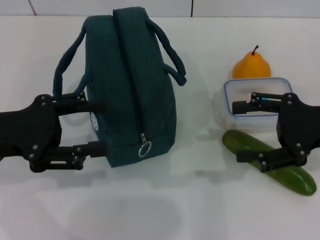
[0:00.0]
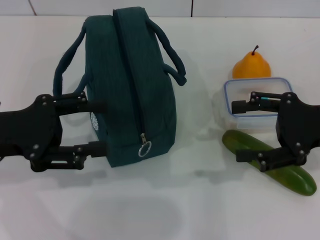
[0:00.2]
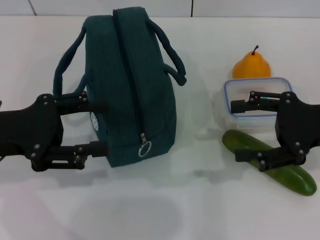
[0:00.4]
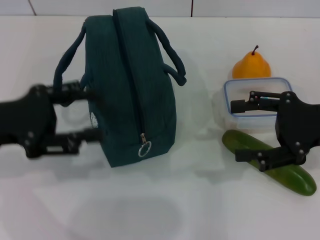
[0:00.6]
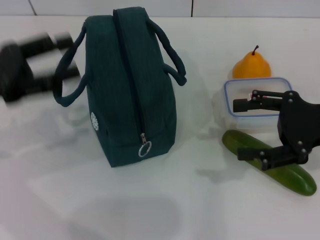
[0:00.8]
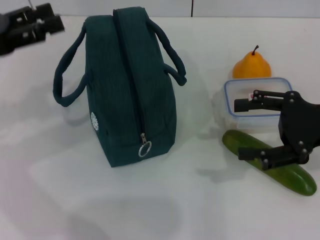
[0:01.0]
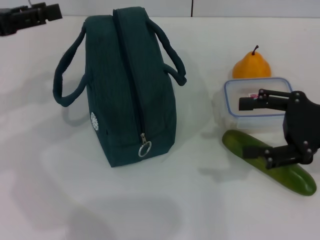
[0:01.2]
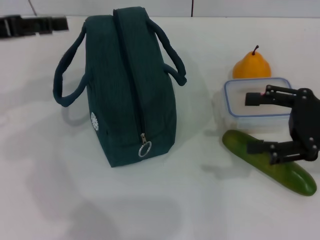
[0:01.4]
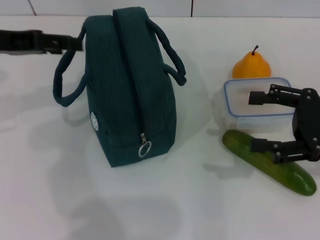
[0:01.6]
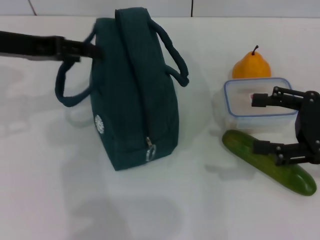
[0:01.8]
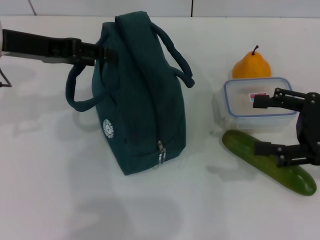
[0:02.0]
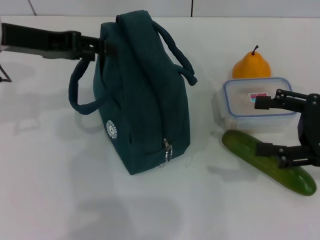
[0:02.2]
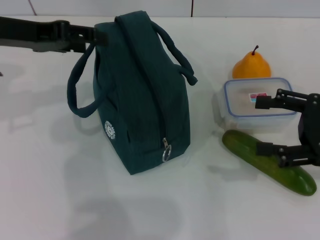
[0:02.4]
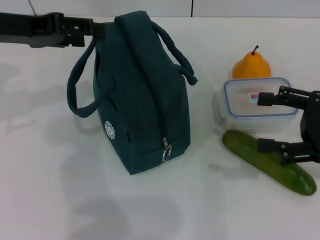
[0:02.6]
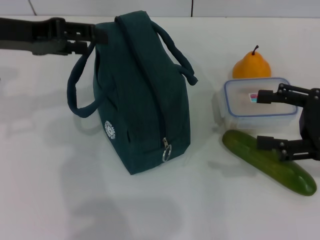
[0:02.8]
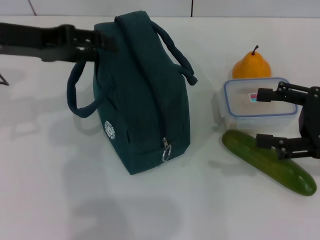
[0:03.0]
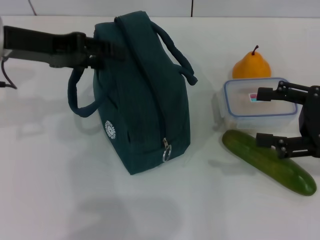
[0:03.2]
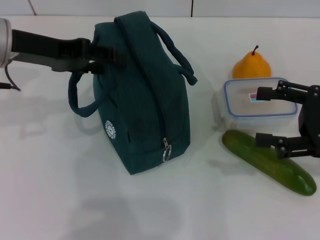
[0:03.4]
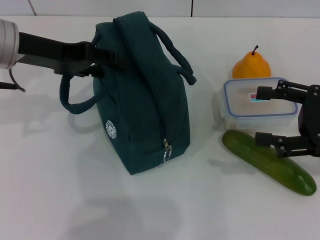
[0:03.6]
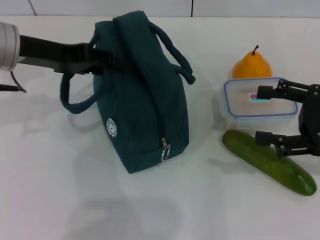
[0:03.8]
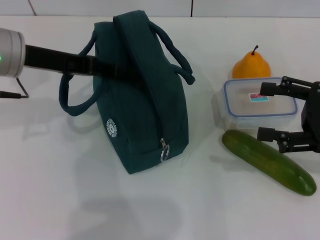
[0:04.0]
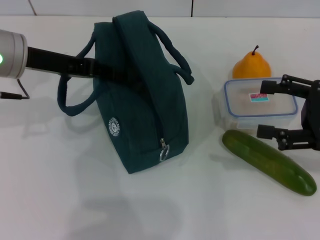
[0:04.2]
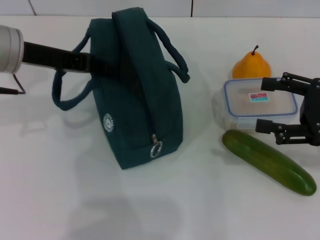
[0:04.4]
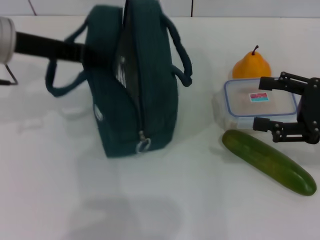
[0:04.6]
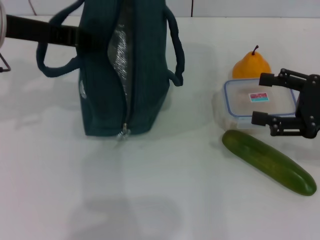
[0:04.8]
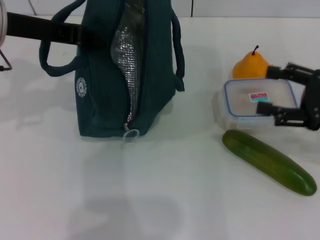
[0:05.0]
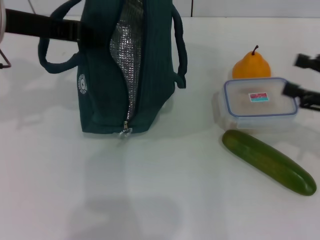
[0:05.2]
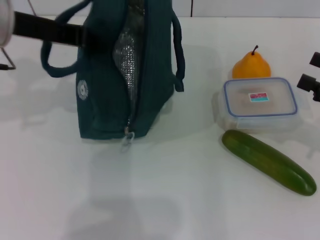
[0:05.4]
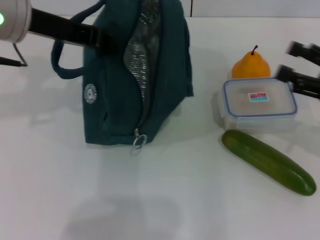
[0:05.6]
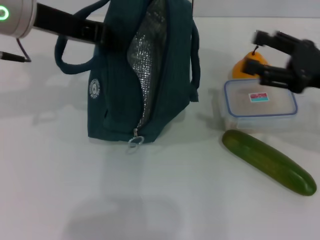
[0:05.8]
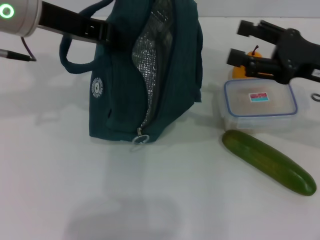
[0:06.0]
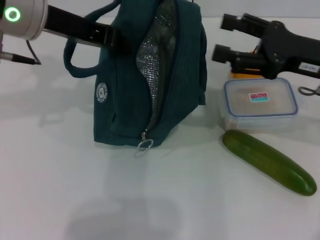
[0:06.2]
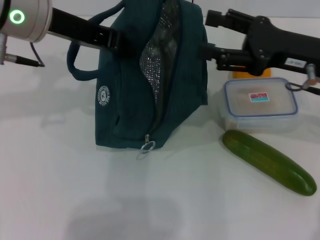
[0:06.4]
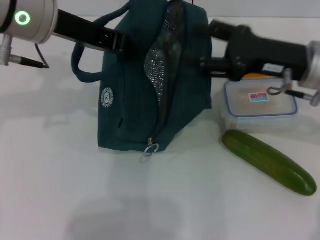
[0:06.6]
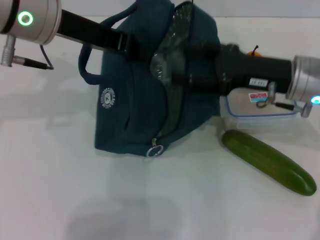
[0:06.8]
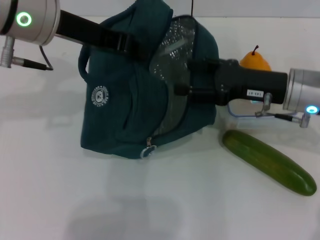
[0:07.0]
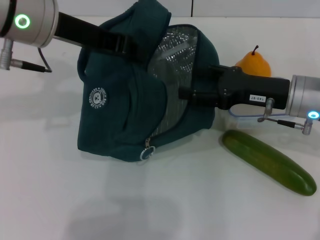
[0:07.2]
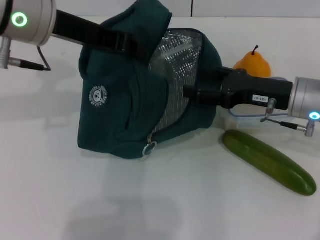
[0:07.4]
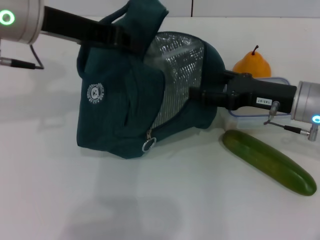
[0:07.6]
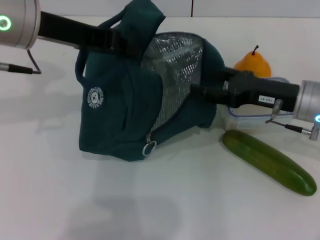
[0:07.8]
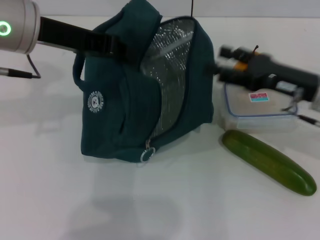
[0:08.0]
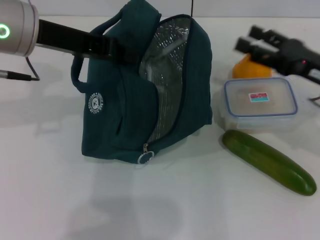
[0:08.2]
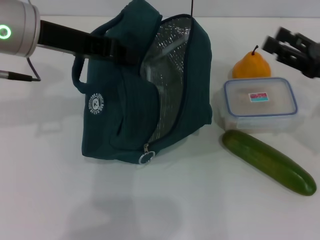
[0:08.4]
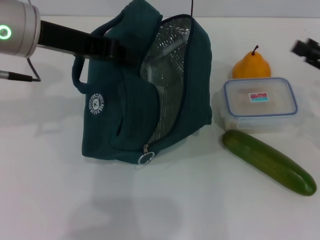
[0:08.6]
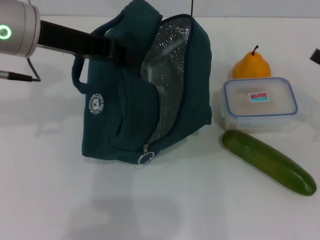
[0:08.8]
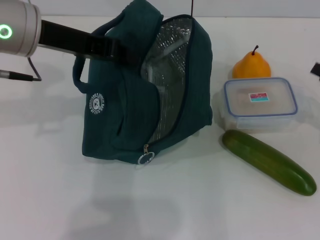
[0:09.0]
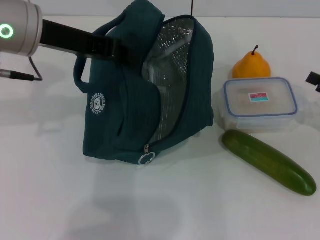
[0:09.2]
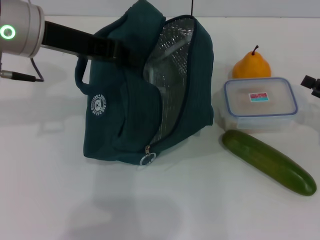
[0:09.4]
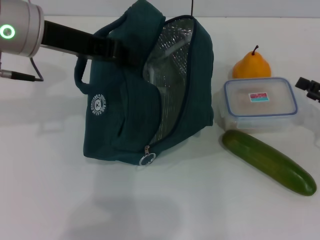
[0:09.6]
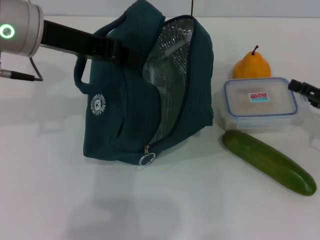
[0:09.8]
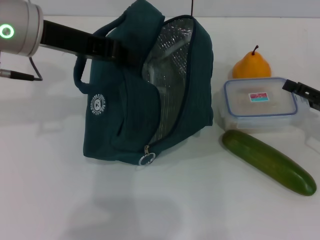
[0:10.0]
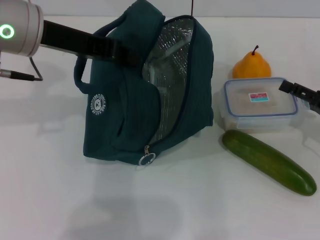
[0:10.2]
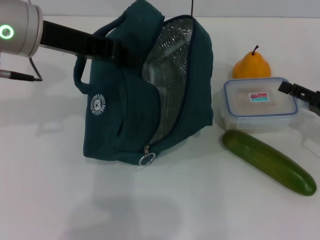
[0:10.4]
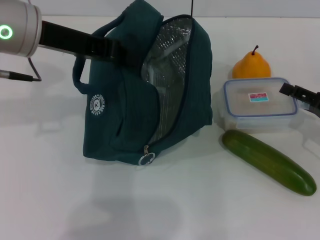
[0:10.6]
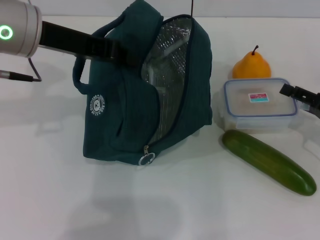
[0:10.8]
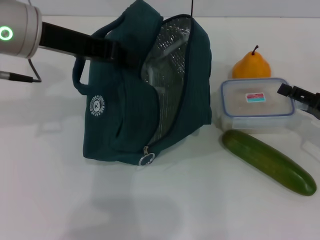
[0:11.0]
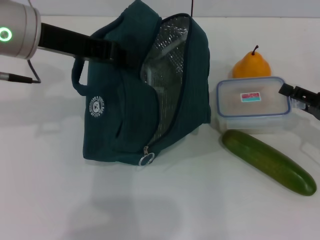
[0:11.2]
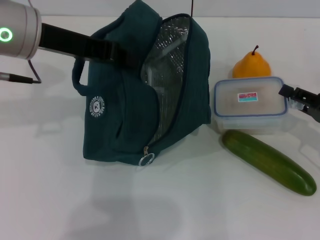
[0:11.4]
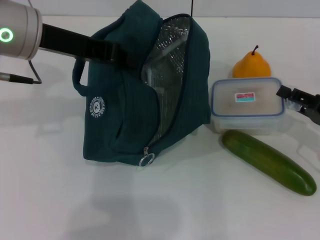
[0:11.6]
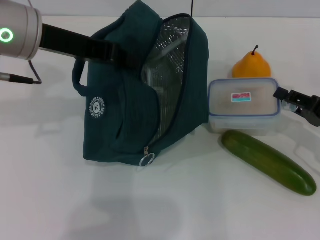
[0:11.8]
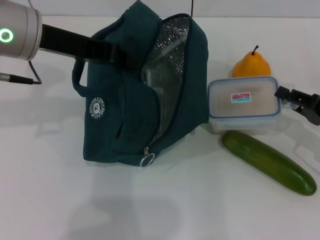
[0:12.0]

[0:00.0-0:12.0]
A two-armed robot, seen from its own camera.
Step, 0:00.0 to 0:04.4: Hold the lunch bag with your left hand.
Step, 0:04.6 to 0:11.8: Pick up the lunch box with your right hand.
0:00.0 to 0:01.6: The left gripper heads forward and upward, covering some 10 cm.
0:01.6 to 0:03.0: The grippers make only small movements.
0:03.0 to 0:04.4: The left gripper closes.
0:04.4 to 0:06.0: The left gripper goes some 5 cm upward, and closes its fingers, while the right gripper changes place by approximately 5 cm.
0:06.0 to 0:07.6: The right gripper is displaced downward by about 5 cm.
0:07.6 to 0:09.0: The right gripper moves to the right, some 15 cm.
0:09.0 to 0:10.4: The grippers move only a little.
0:10.4 to 0:12.0: The right gripper closes up.

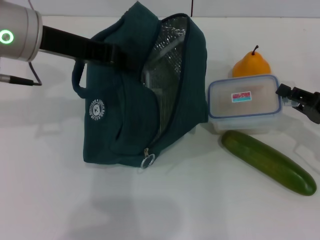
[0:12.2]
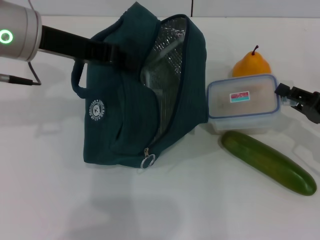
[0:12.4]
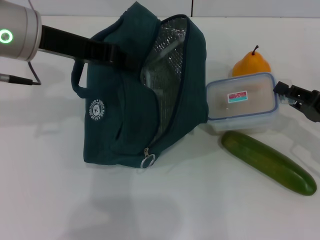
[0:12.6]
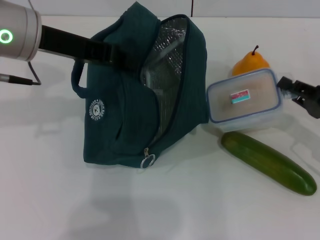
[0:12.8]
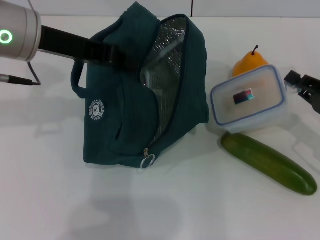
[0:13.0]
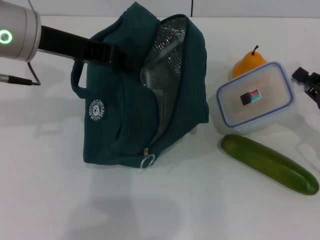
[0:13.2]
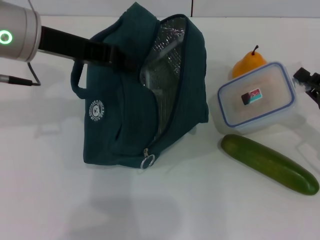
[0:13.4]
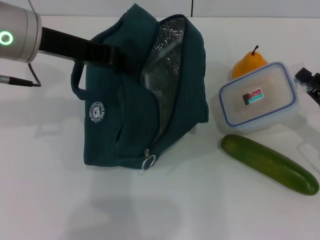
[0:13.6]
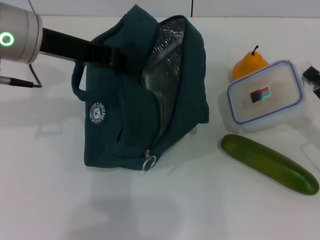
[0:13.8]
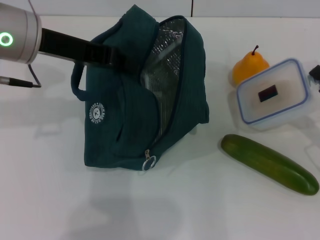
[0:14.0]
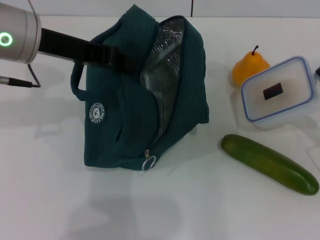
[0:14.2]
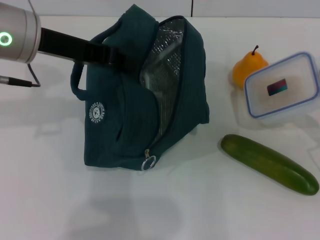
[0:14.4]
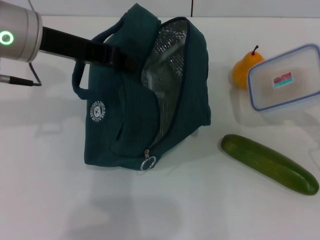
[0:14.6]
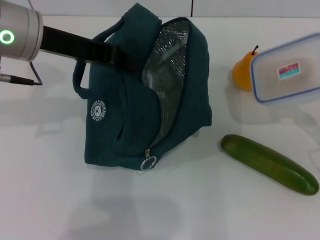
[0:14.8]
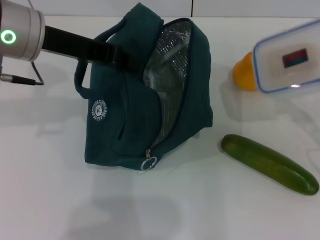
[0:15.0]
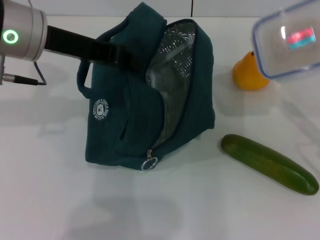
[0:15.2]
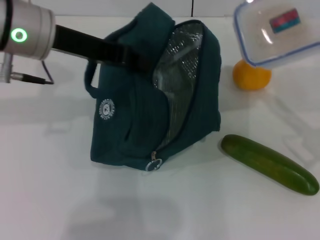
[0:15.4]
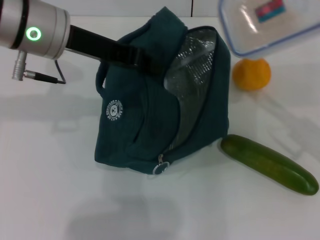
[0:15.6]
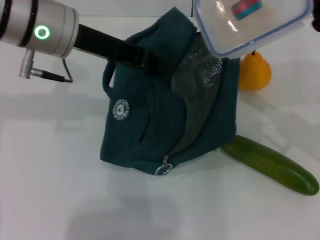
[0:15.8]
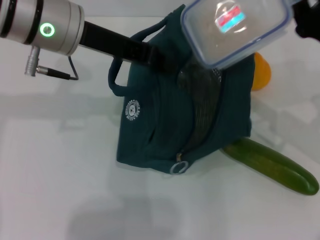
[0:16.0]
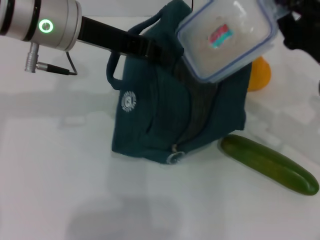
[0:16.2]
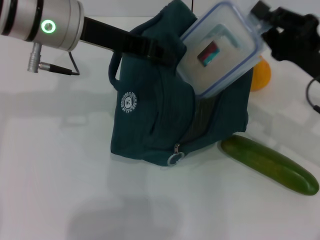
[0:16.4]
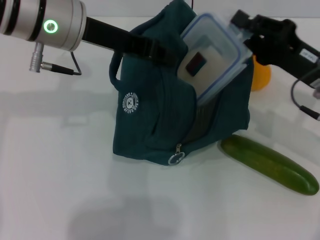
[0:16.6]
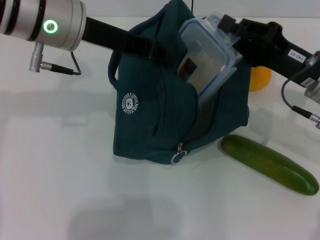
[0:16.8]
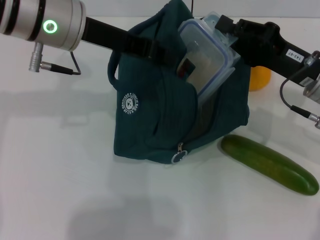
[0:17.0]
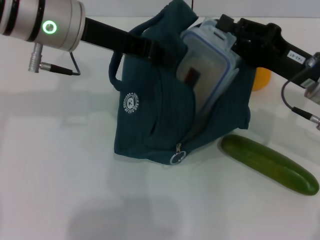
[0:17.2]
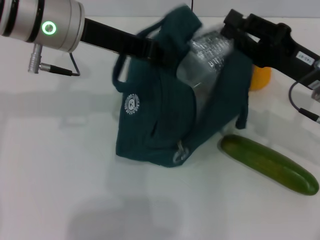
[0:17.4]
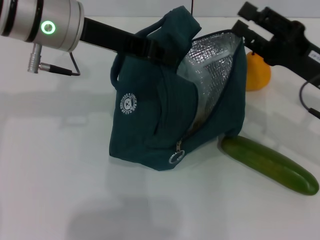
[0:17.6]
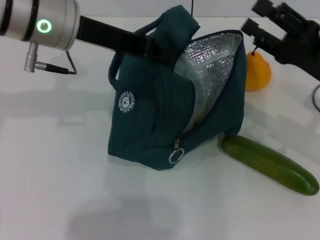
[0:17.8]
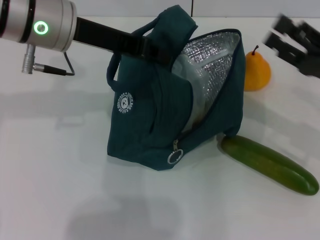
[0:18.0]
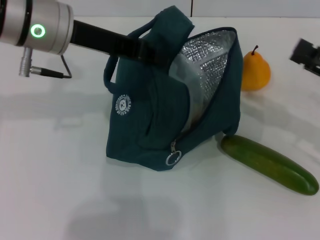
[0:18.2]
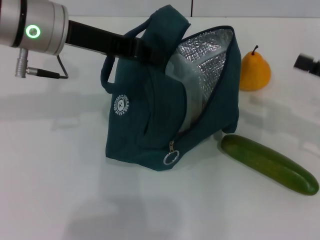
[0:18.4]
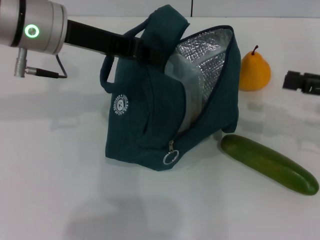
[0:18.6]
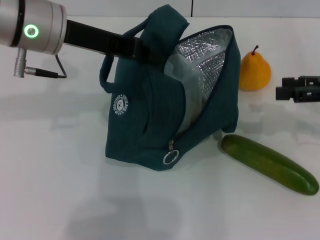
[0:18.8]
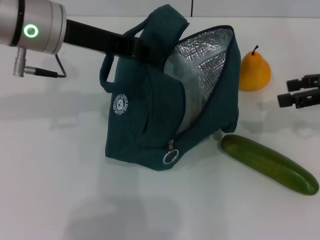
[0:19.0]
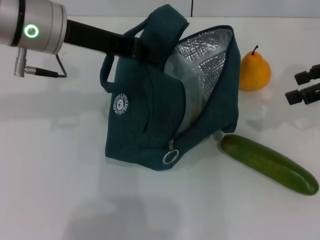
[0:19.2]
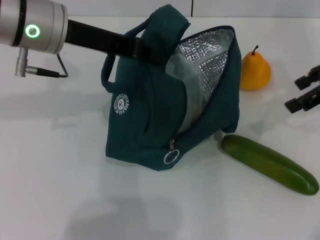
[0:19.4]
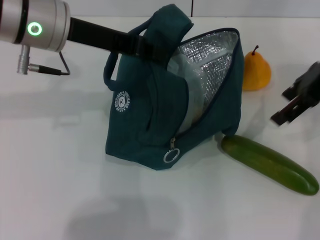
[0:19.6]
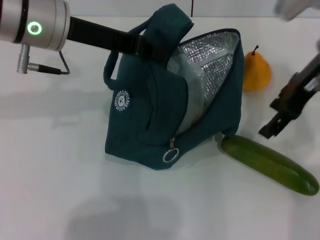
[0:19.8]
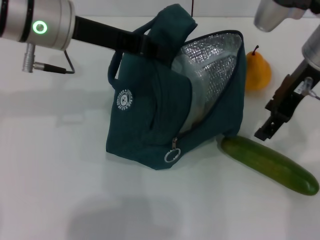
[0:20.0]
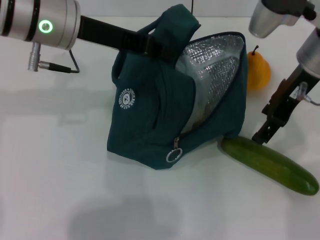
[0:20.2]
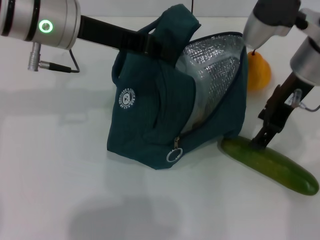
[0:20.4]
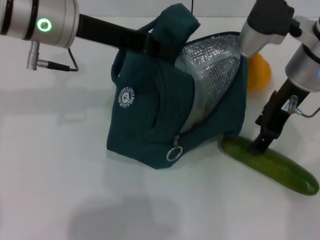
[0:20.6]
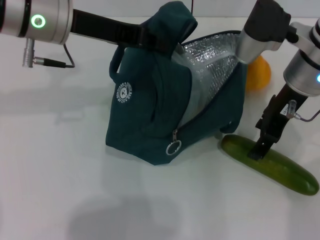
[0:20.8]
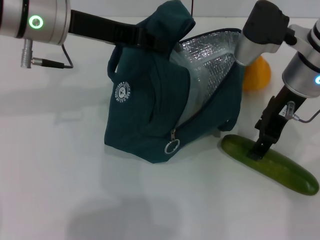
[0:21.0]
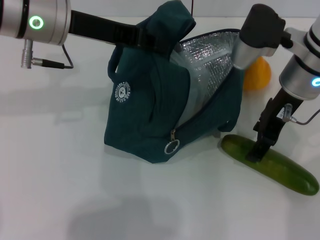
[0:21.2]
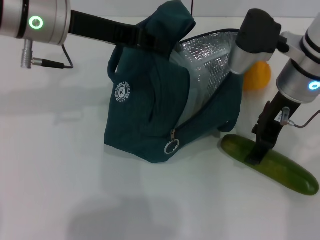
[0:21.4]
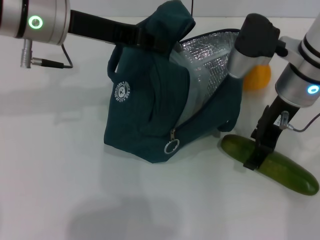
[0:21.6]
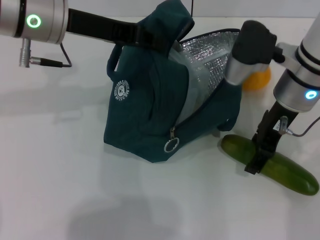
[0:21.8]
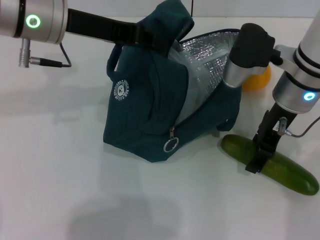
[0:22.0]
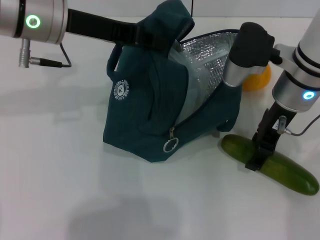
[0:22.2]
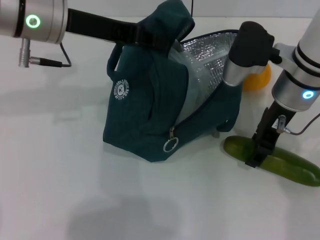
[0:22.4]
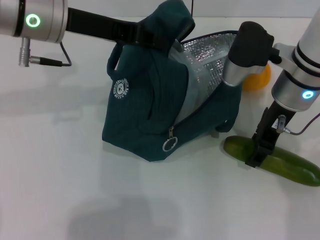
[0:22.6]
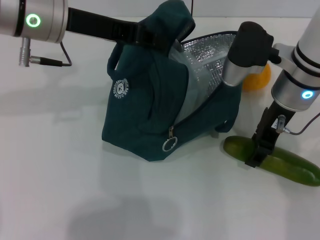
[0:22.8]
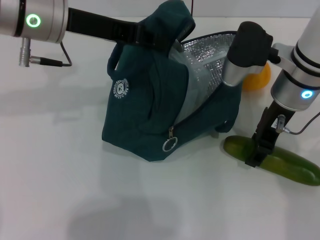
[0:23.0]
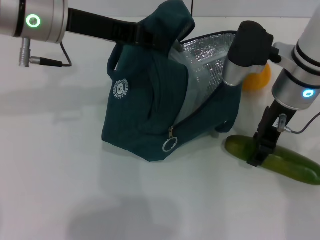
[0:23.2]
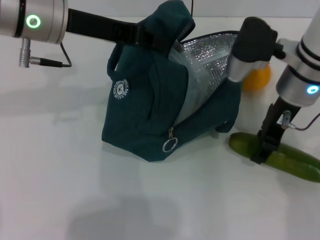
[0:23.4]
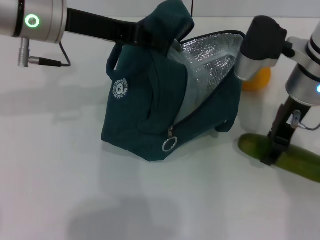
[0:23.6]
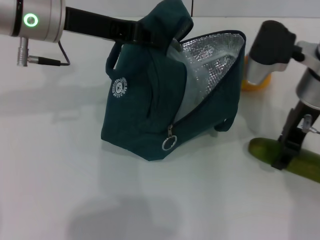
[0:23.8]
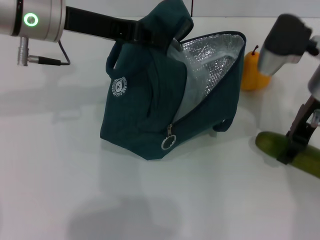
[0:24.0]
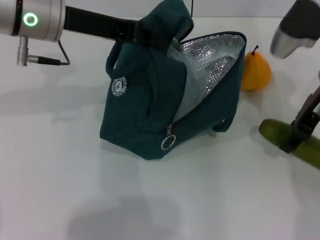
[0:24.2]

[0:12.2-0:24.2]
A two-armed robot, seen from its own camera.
Step, 0:12.2 to 0:17.4: Place the lunch box into the lunch bag with your right hand.
Step, 0:17.6 to 0:23.0: Pick up the cucumber with your right hand.
0:12.2 to 0:13.8: There are only small adjustments of the grippers.
0:15.2 to 0:16.6: The right gripper goes roughly 10 cm to the left and forward.
0:16.6 to 0:18.2: The right gripper shifts about 10 cm to the right, and opens.
0:18.2 to 0:19.8: The right gripper is displaced to the left, upward and forward by about 20 cm.
0:19.8 to 0:21.2: The right gripper ends up about 5 cm from where it was.
0:21.2 to 0:22.6: The grippers stay close to where they were, moving slightly.
0:22.6 to 0:24.2: The right gripper heads to the right, covering roughly 5 cm.
